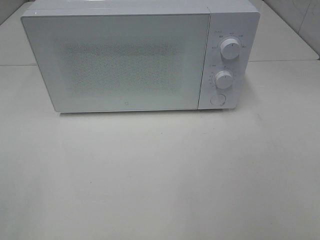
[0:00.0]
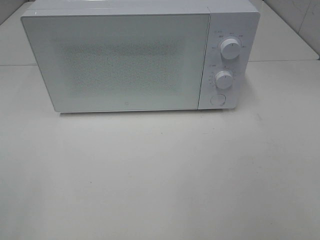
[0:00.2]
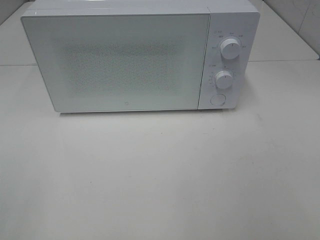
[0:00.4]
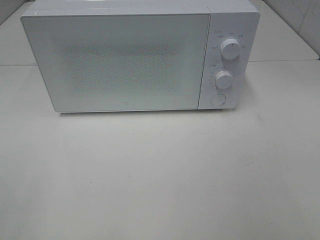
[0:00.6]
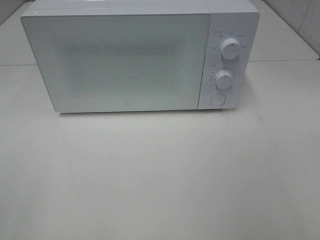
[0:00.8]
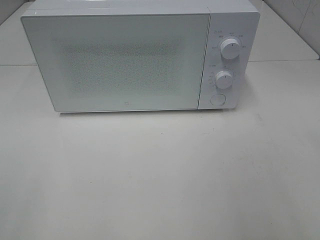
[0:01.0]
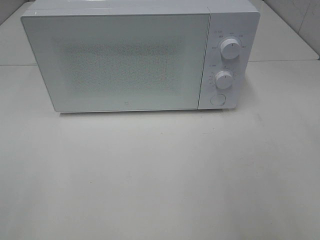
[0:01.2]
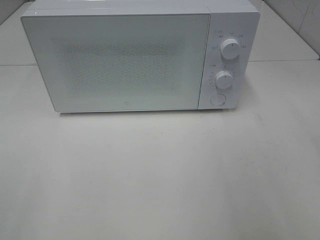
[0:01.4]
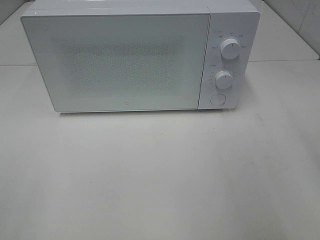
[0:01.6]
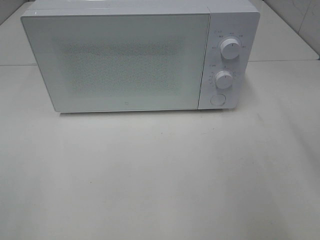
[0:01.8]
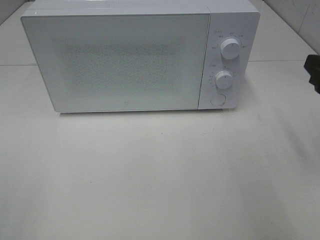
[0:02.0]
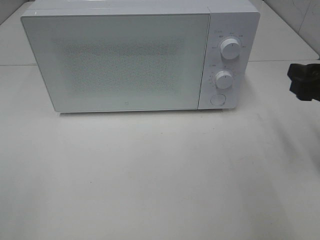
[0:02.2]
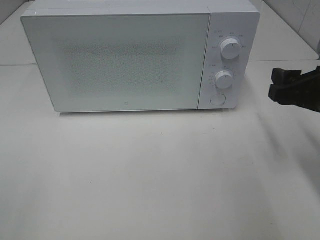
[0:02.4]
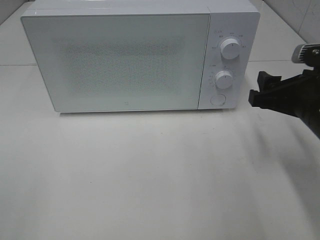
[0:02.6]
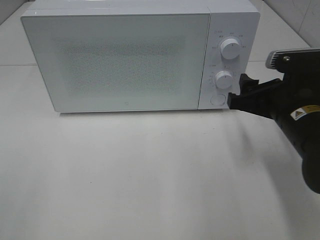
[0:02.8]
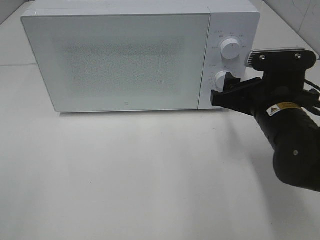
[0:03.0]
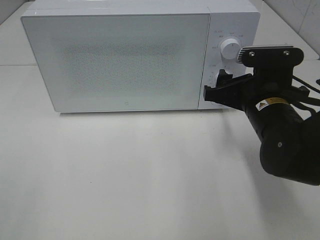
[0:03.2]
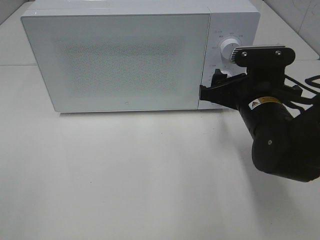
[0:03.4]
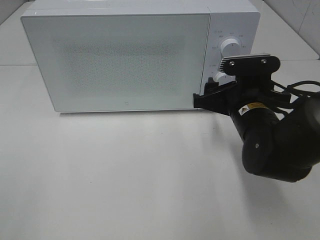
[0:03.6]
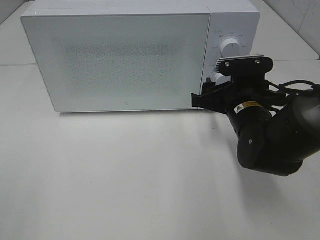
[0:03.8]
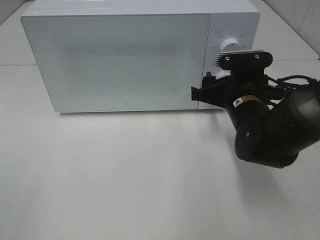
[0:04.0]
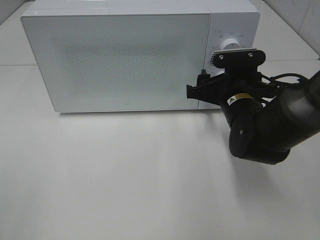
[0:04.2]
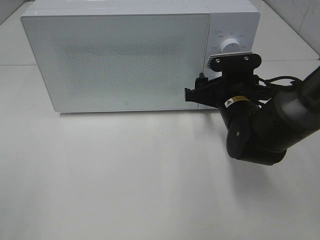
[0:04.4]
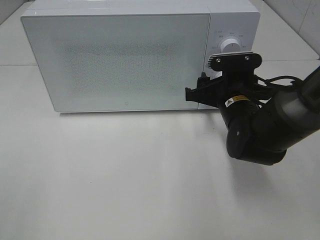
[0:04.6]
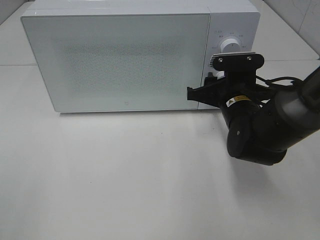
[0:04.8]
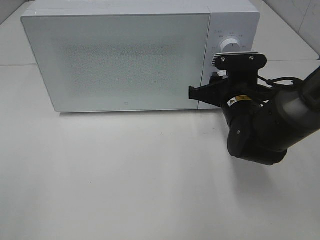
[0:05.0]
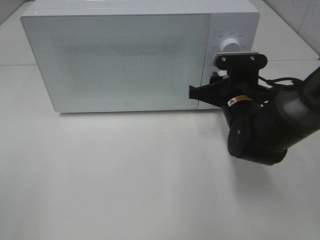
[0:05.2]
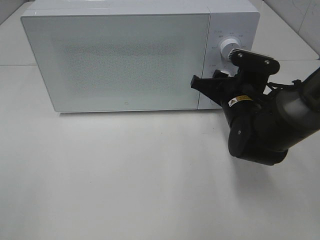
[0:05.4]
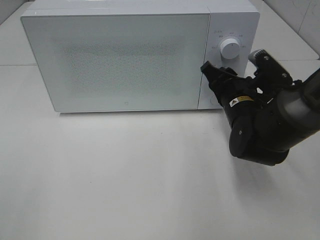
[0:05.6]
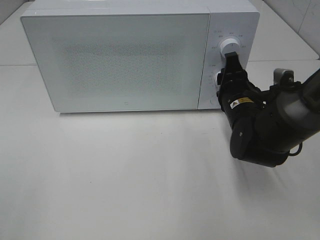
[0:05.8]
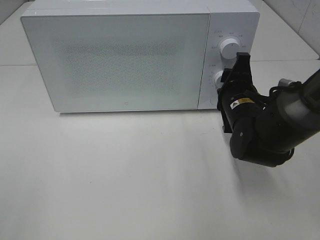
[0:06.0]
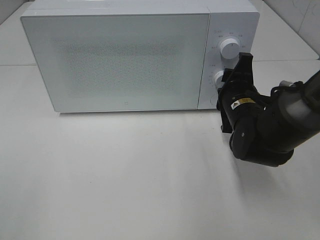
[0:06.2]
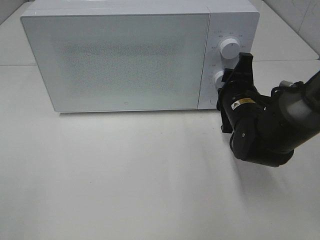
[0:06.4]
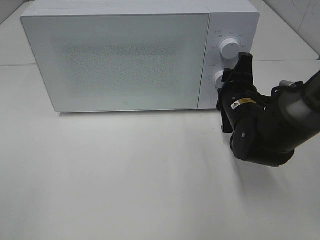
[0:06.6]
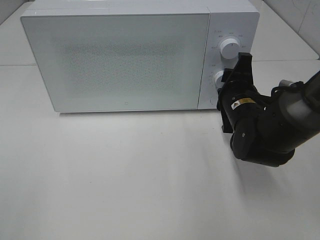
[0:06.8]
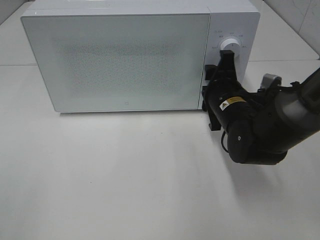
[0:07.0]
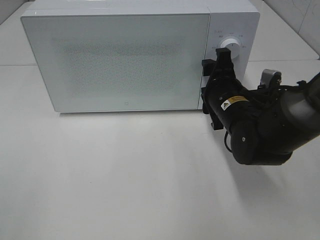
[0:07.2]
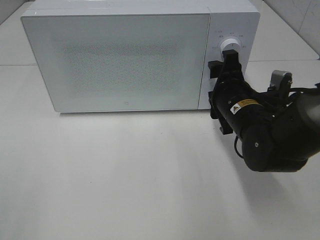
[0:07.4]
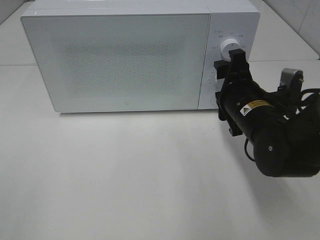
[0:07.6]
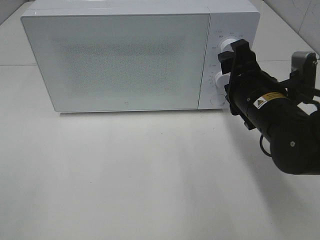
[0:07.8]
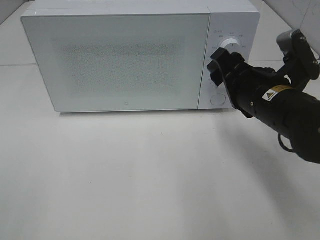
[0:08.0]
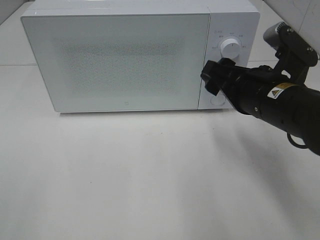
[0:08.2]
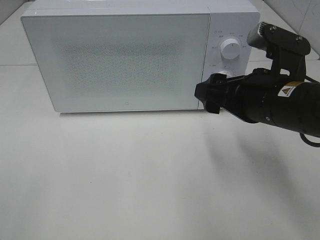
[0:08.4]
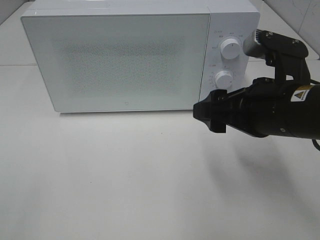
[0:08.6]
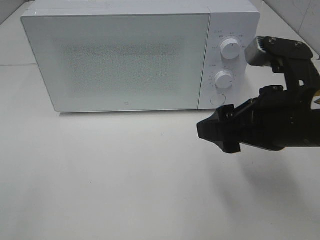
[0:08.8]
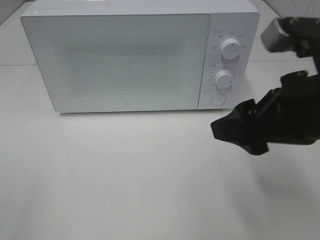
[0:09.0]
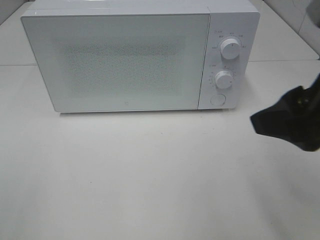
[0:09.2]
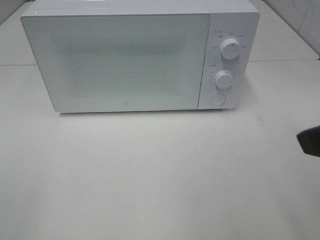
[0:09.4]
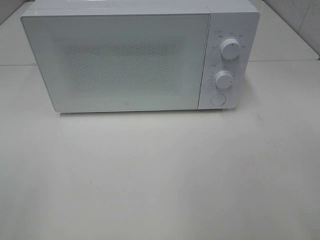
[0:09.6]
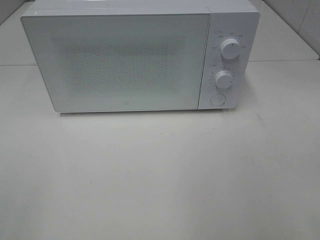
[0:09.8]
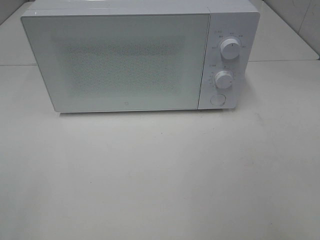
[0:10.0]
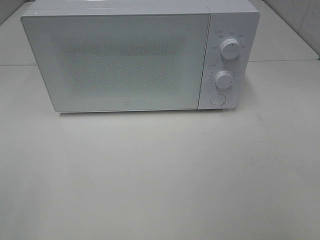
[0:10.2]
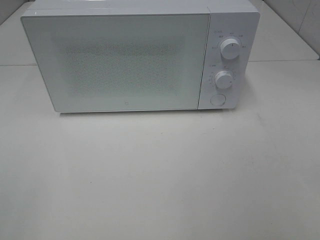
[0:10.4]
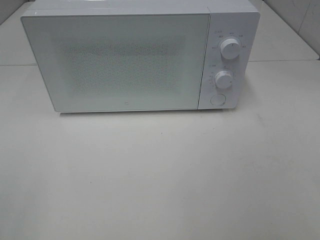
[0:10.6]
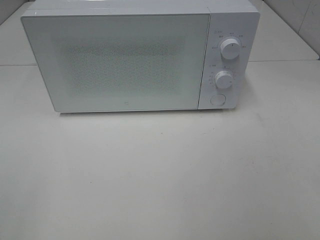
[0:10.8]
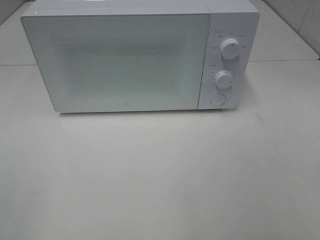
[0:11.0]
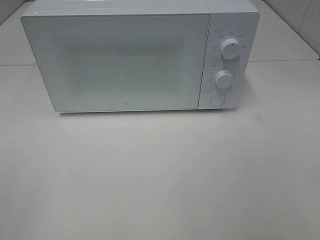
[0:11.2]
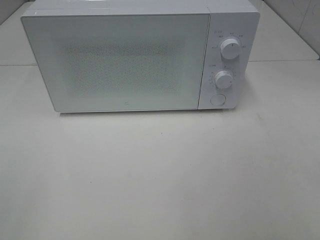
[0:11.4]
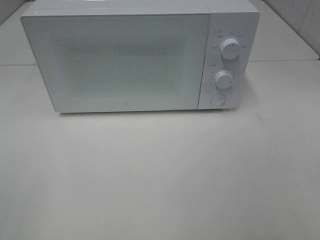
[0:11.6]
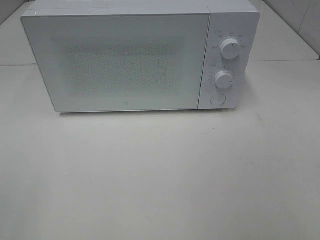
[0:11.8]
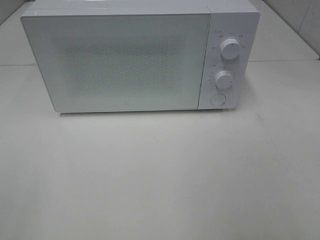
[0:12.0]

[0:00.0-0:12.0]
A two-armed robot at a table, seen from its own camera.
Task of the whole recording: Heat the burger.
Step, 0:00.0 to 0:06.8: Right hand: twist timer button.
0:01.6 to 0:03.0: The right gripper goes roughly 20 cm downward, to the left and forward.
0:03.0 to 0:04.4: The right gripper travels forward by about 5 cm.
0:04.4 to 0:06.0: The right gripper closes.
0:06.0 to 0:07.6: The grippers move only a little.
0:07.6 to 0:09.0: The right gripper heads upward and backward, covering about 15 cm.
0:09.0 to 0:10.4: The right gripper shifts approximately 20 cm backward and to the right.

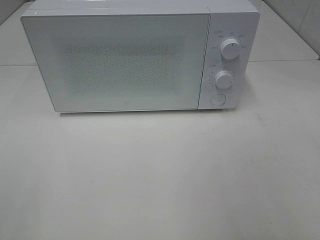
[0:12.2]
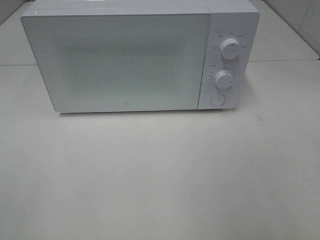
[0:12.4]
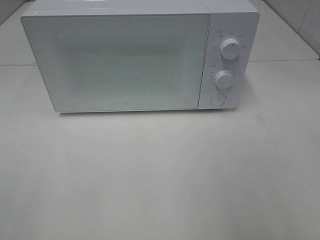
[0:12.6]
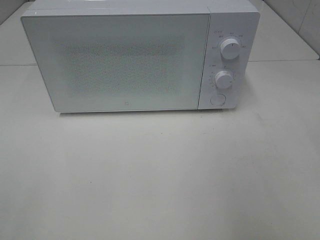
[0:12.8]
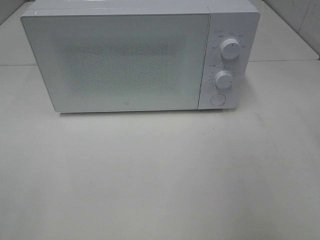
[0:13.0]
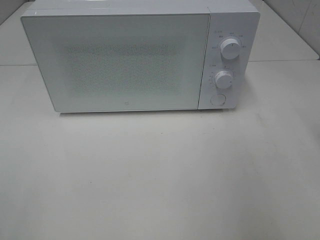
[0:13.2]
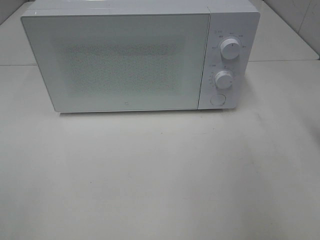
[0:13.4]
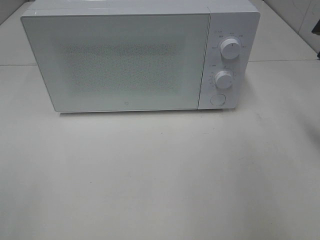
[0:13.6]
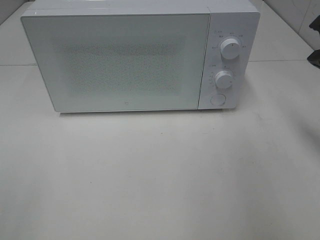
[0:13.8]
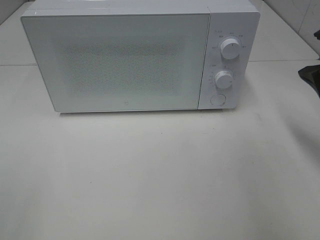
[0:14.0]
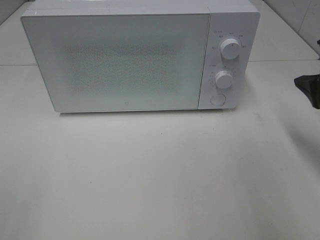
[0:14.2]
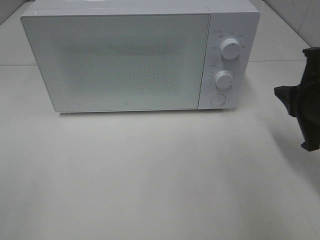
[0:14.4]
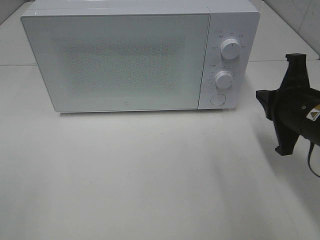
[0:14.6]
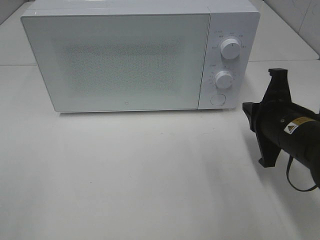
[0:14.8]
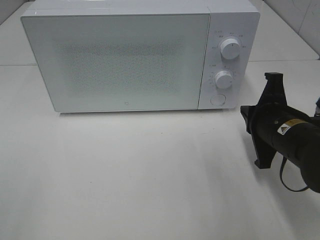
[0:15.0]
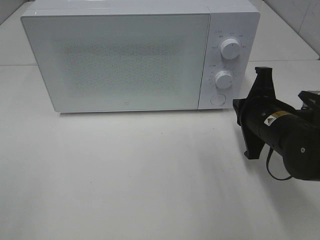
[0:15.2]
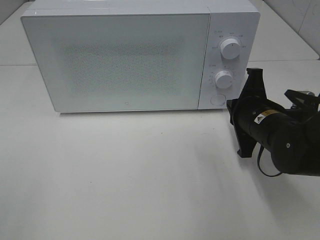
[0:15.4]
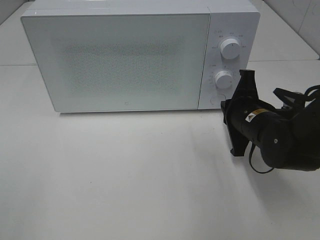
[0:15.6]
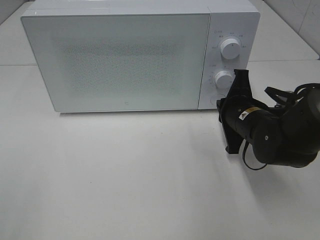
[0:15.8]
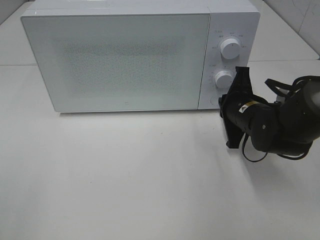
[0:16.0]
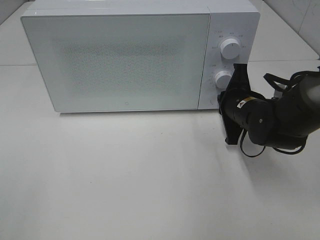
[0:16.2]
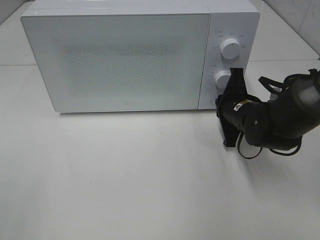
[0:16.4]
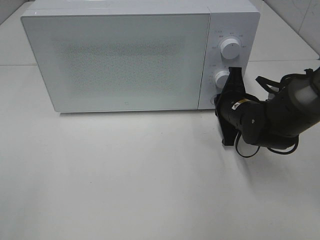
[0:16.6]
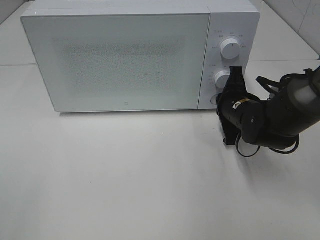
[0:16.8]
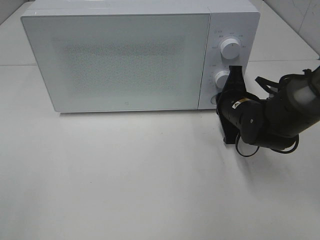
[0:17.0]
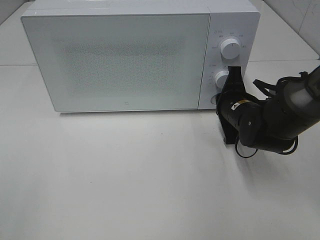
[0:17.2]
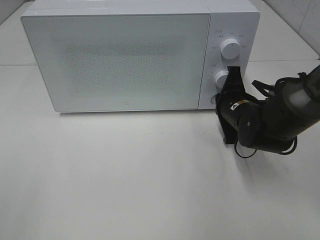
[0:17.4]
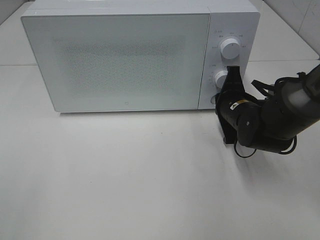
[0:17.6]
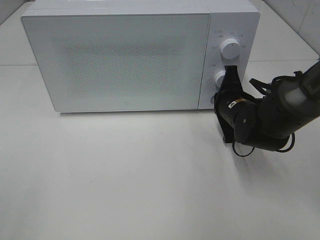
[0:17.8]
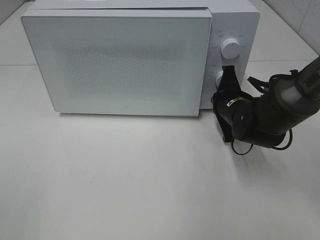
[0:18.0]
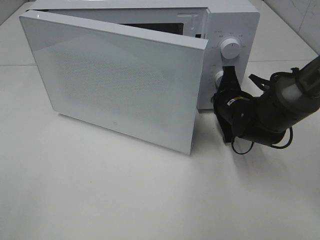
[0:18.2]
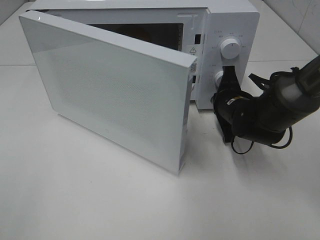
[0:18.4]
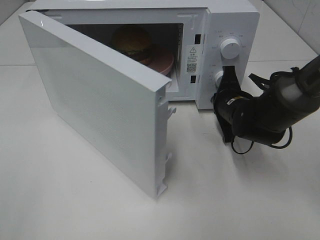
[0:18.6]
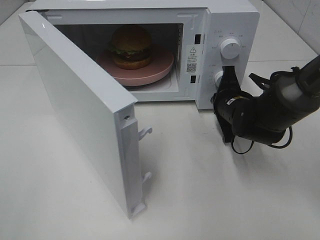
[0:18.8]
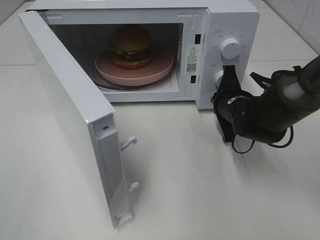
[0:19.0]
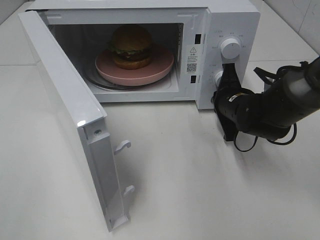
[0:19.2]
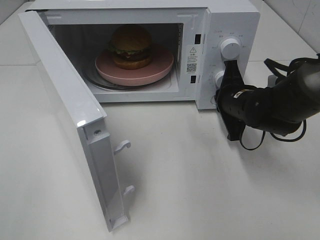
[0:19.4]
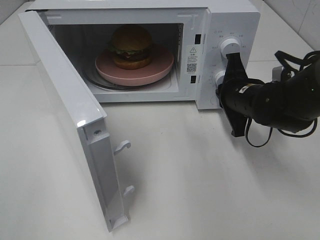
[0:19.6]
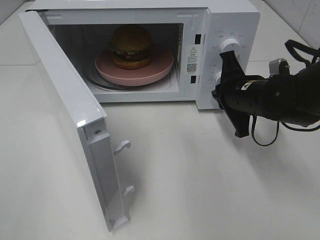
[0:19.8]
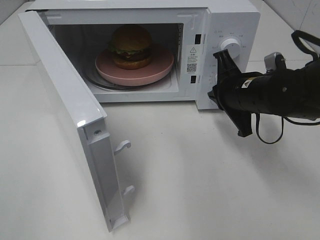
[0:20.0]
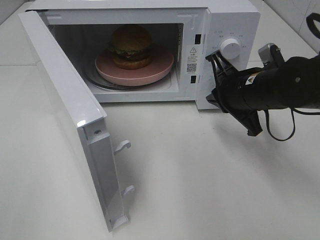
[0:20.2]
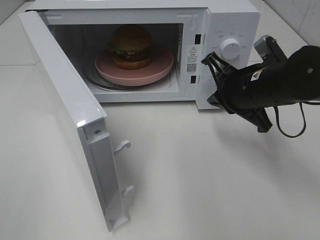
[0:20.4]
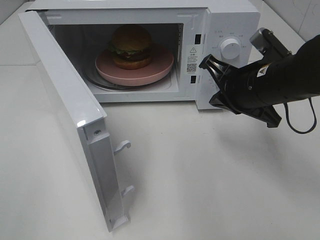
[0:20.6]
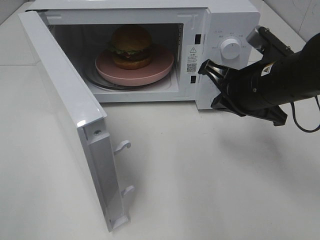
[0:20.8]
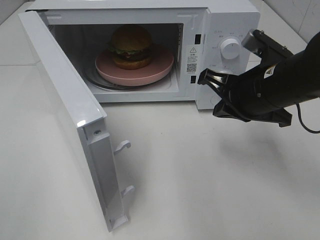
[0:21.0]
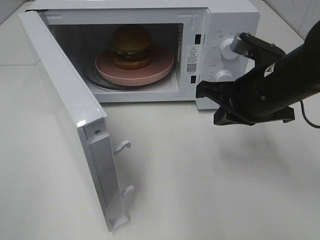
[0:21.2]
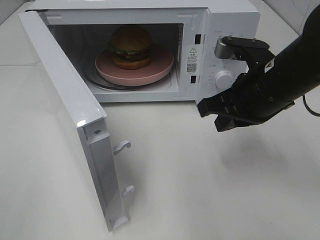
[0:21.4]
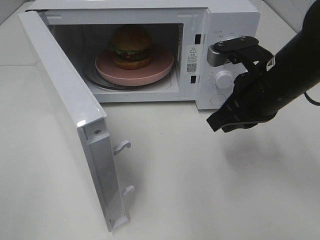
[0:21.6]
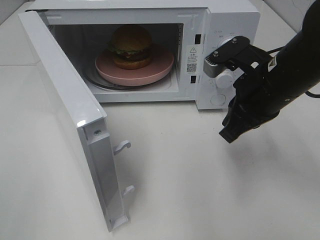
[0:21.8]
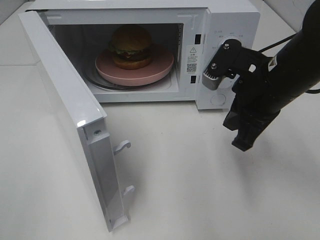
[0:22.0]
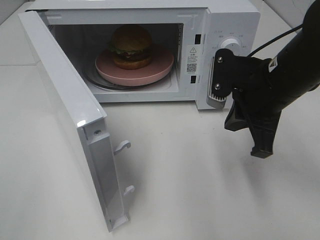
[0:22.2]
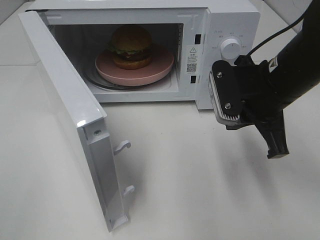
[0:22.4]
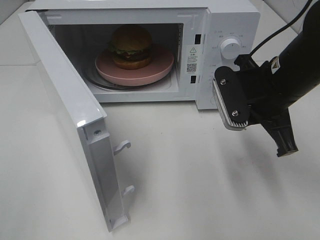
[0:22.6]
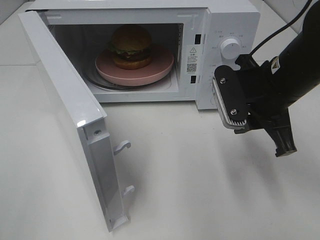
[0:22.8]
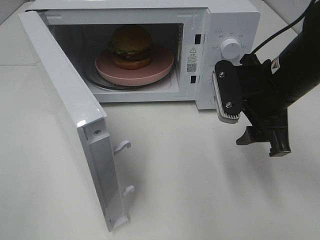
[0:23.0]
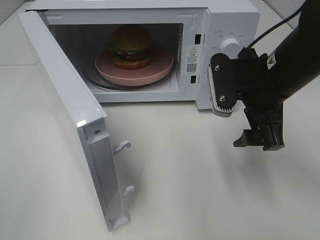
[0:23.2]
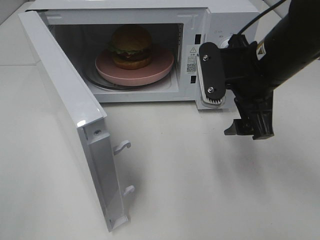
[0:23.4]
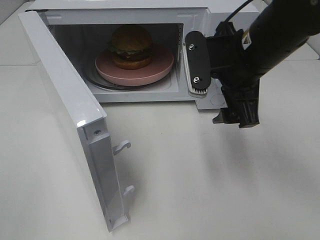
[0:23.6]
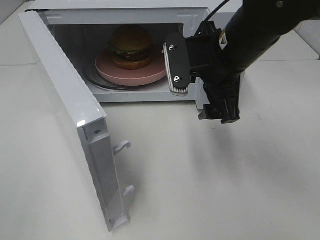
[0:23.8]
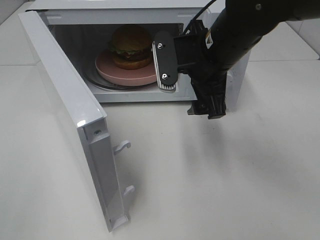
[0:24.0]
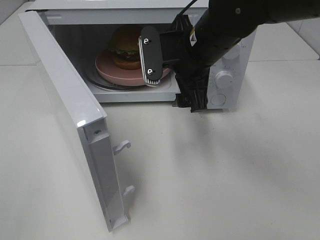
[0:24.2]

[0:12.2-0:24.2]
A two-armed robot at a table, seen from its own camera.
Task of the whole recording: Heat the burger.
Step, 0:12.2 to 0:19.4: Right hand: press the switch.
0:12.2 to 0:13.8: The right gripper heads forward and downward, covering roughly 20 cm, and closes its fingers.
0:13.8 to 0:15.2: The right gripper is displaced downward and to the left by roughly 15 cm.
0:15.2 to 0:16.6: The right gripper is displaced forward by about 5 cm.
0:16.6 to 0:18.2: The grippers make only small movements.
0:18.2 to 0:19.8: The right gripper moves upward, roughly 5 cm.
0:19.8 to 0:21.2: The right gripper is displaced upward and backward by about 10 cm.
0:22.6 to 0:24.2: The right gripper moves to the left and forward, about 10 cm, and opens its fingers.
